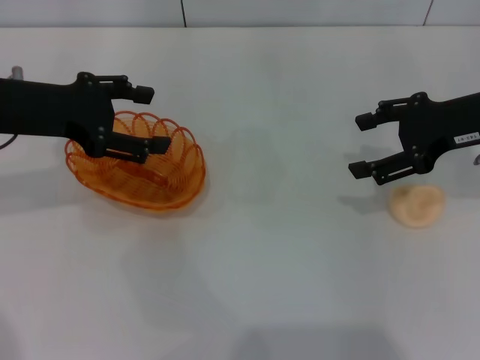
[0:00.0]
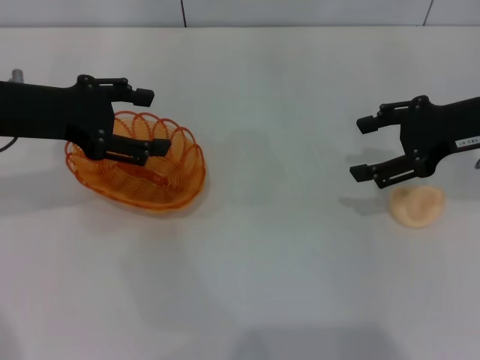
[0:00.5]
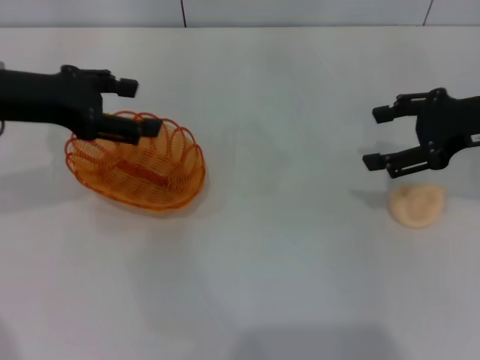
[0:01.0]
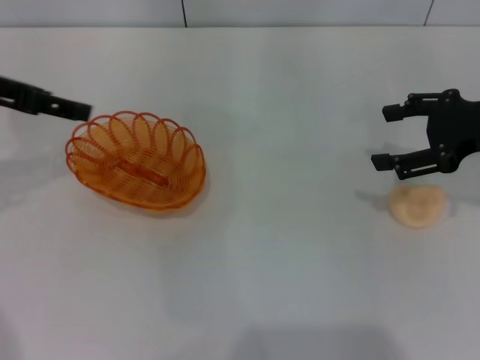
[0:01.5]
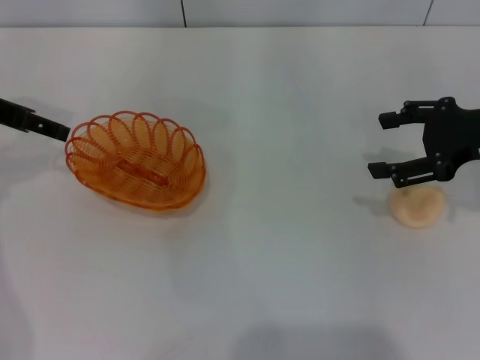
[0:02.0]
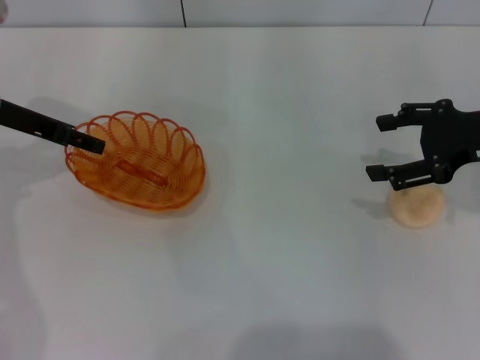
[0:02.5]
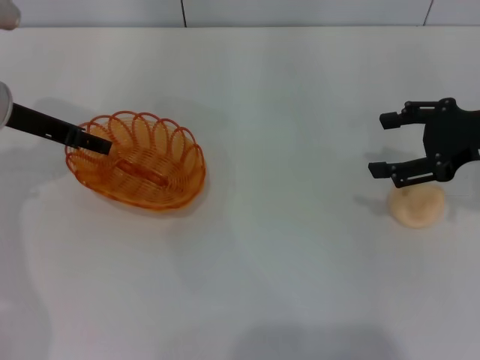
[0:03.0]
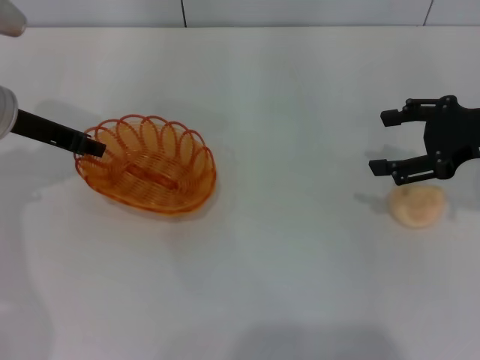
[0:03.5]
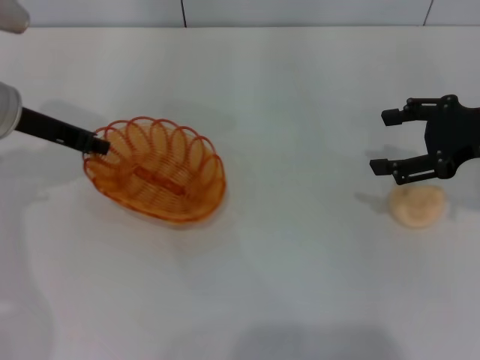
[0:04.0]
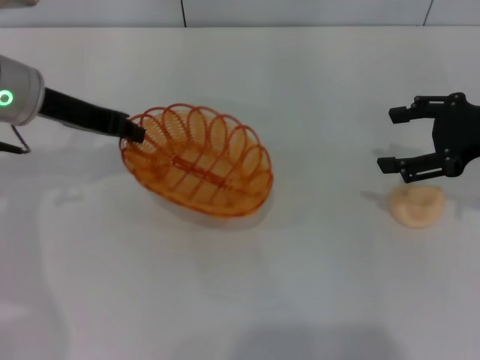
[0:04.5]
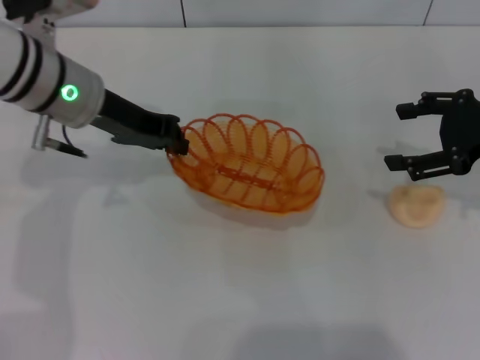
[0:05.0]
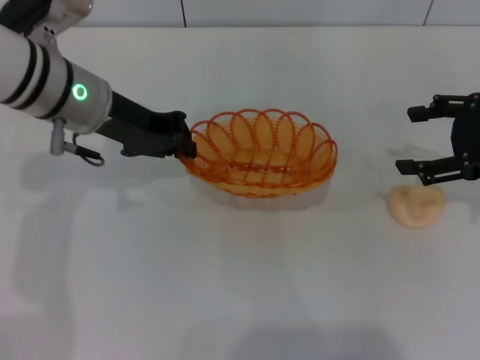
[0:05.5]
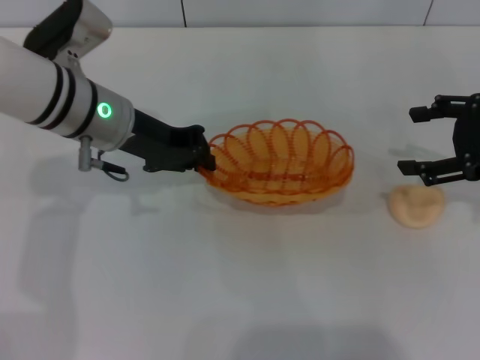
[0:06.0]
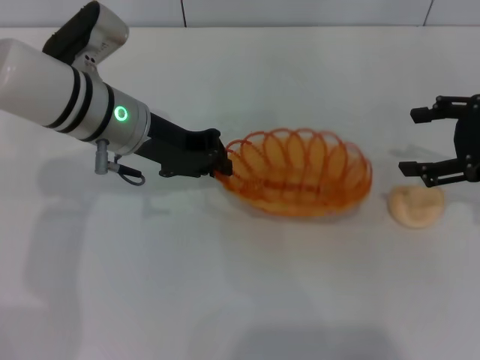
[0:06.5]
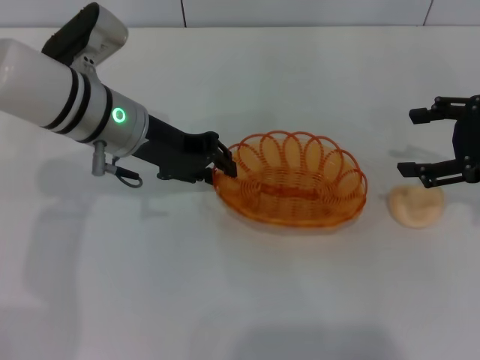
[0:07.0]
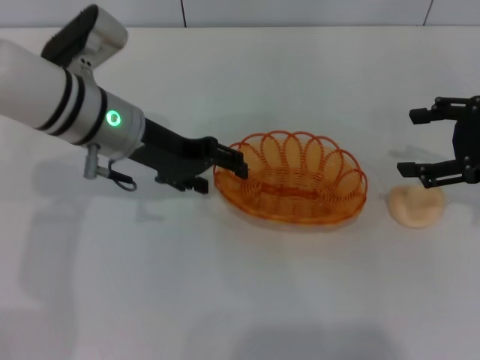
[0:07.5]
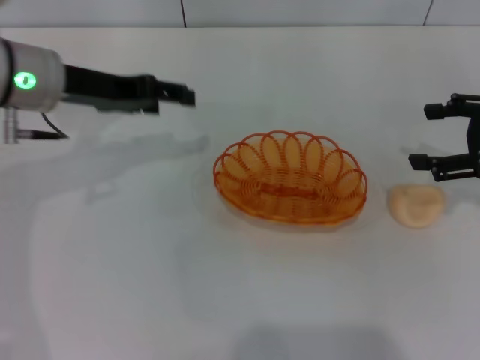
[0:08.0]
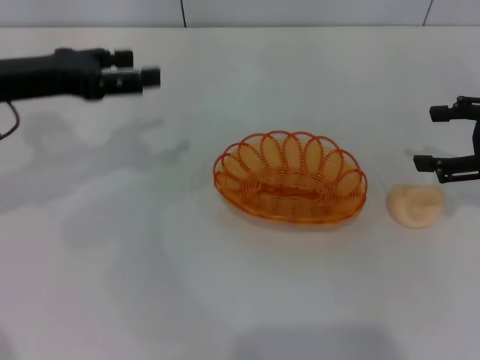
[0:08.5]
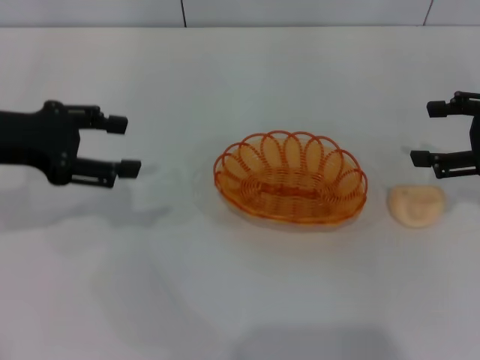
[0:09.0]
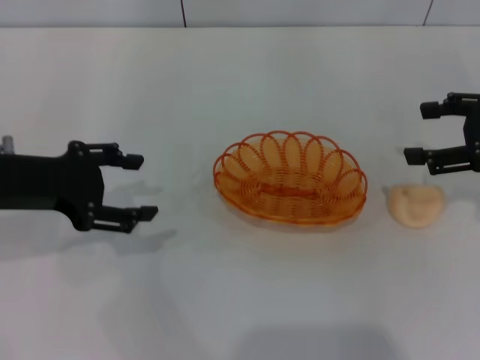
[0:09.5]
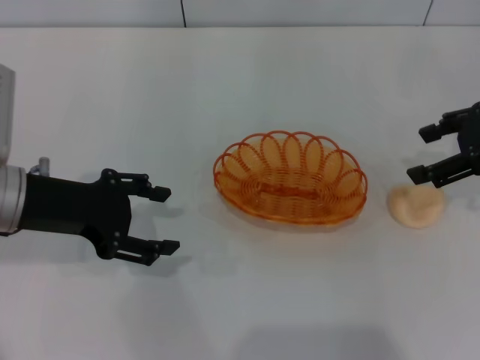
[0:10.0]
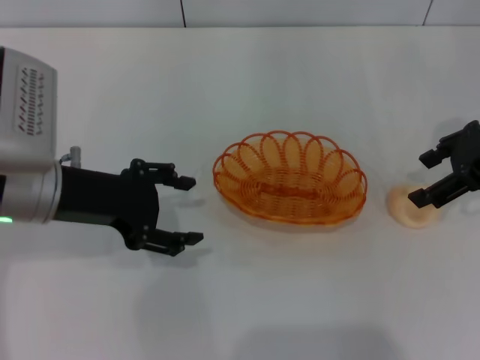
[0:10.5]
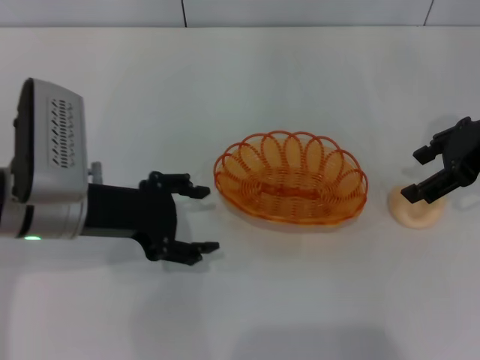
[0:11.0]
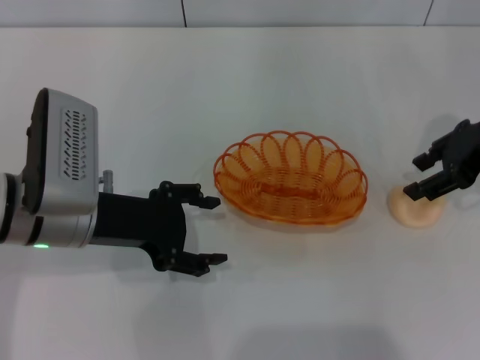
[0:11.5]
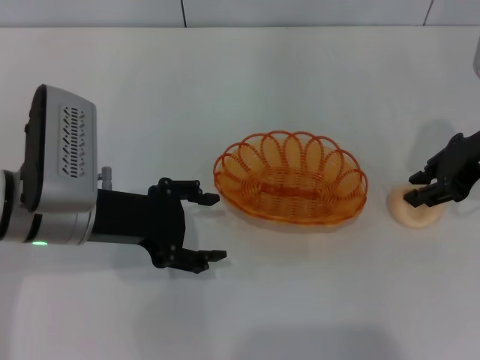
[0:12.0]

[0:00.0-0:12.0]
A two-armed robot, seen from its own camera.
Step, 0:00.0 to 0:04.5: Pick up the basket with the left gripper.
Step, 0:05.0 to 0:08.0: Place the basket in the center of view with the left gripper.
0:00.0 to 0:02.0: The left gripper moves about 5 cm.
0:02.0 to 0:04.0: The left gripper shifts about 5 cm downward, and closes.
0:04.0 to 0:06.0: The left gripper is displaced to the right by about 10 cm.
0:06.0 to 0:08.0: The left gripper moves to the left, about 5 cm, and opens its fingers.
0:08.0 to 0:10.0: The right gripper changes place by about 5 cm. Meanwhile the left gripper is displaced backward by approximately 10 cm.
0:10.0 to 0:12.0: The right gripper closes up. Meanwhile the left gripper goes approximately 5 cm to the right.

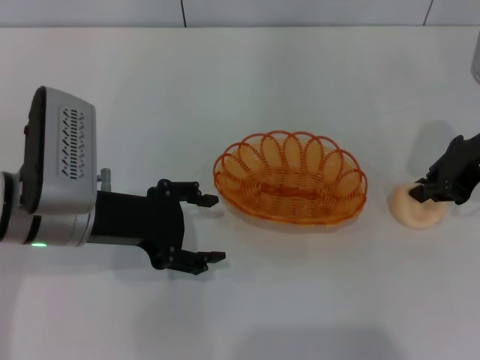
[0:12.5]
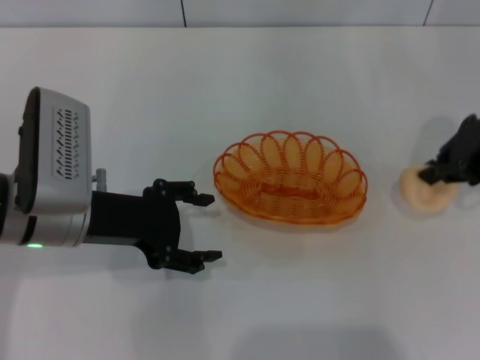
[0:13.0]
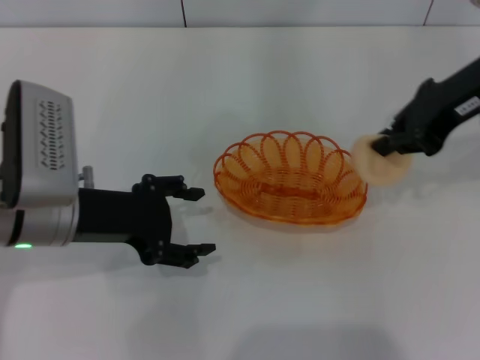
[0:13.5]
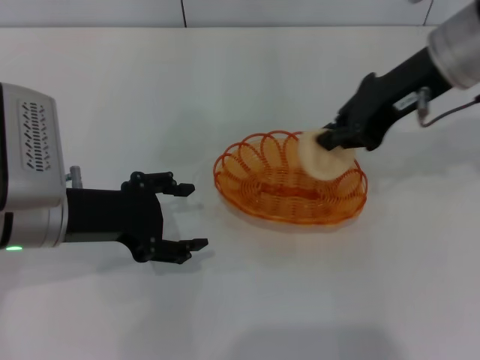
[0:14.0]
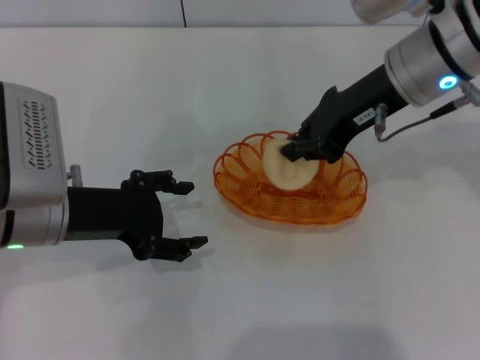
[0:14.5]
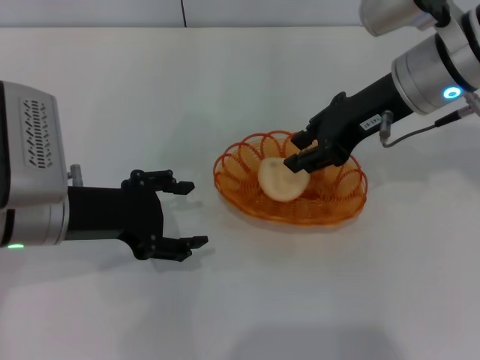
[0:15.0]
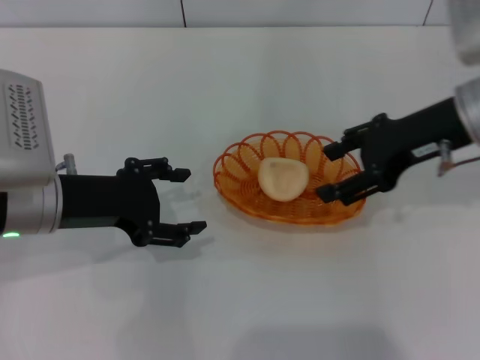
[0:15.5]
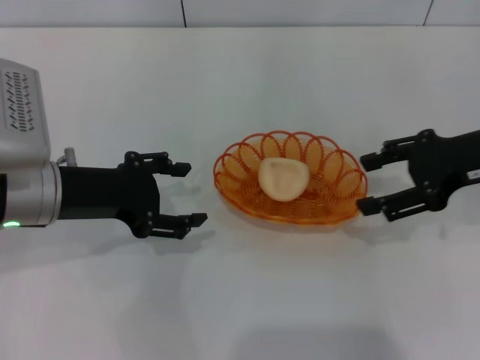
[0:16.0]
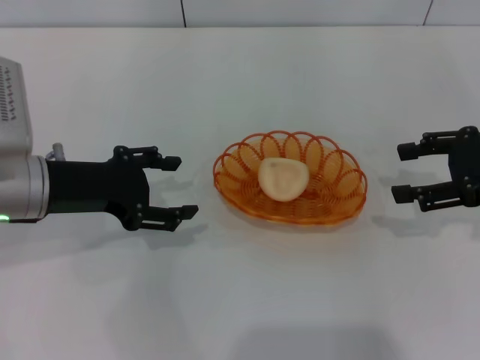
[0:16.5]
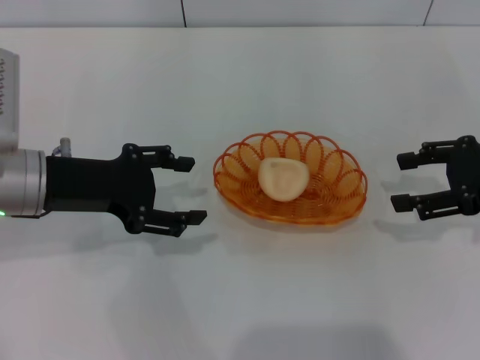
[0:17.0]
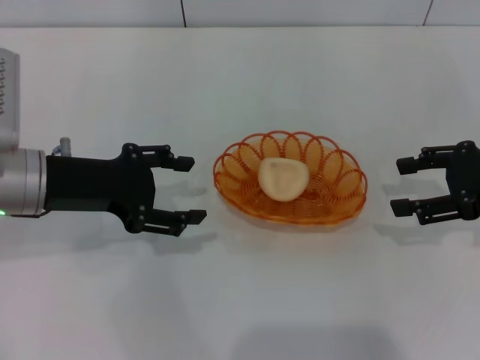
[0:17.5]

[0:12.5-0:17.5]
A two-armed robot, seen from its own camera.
Step, 0:13.5 to 0:15.5: Place the egg yolk pastry into the basket with the right gripper.
0:12.5 to 0:15.0: The right gripper heads to the left, covering roughly 10 cm.
0:15.0 to 0:17.5: The right gripper goes approximately 15 cm to the right, and opens up.

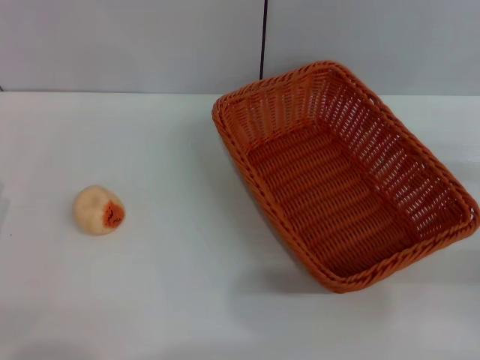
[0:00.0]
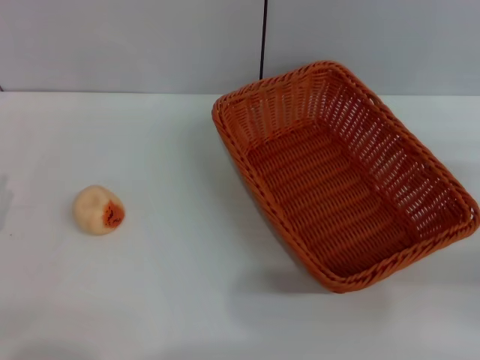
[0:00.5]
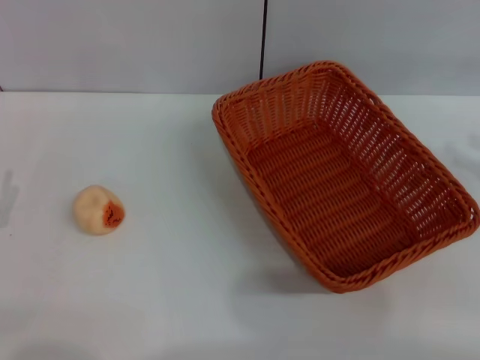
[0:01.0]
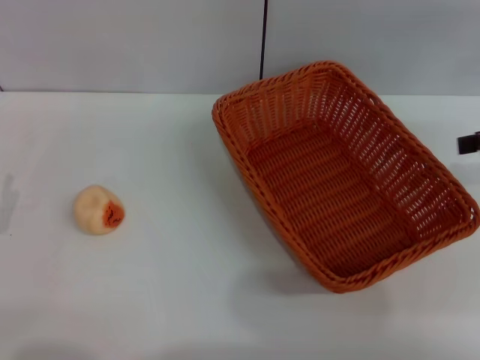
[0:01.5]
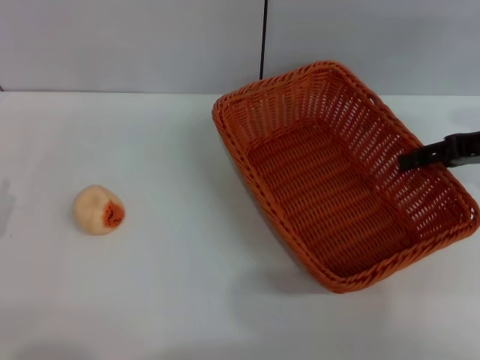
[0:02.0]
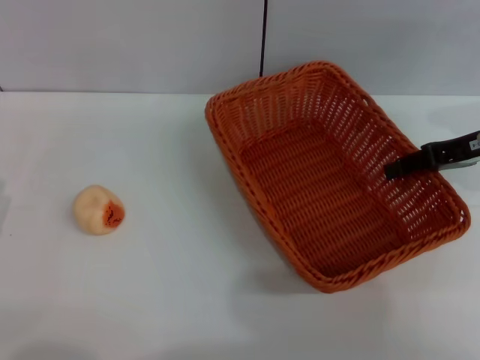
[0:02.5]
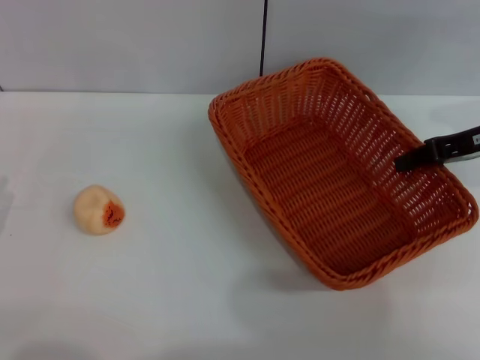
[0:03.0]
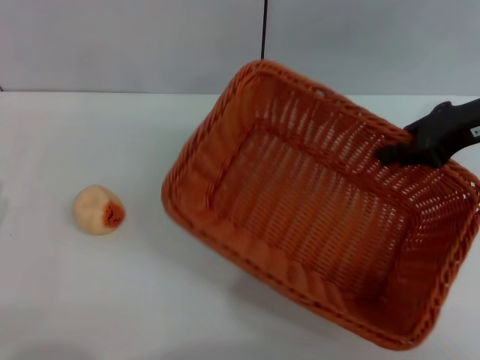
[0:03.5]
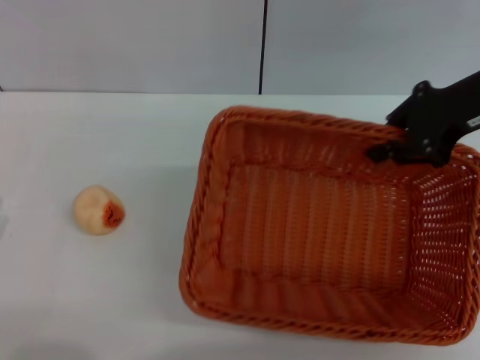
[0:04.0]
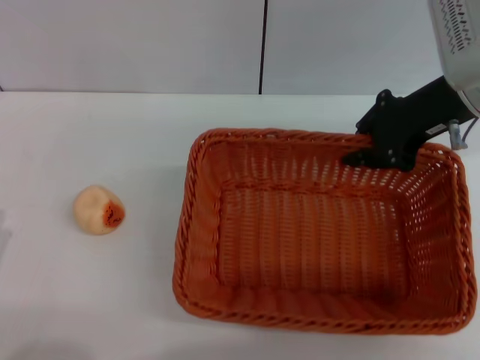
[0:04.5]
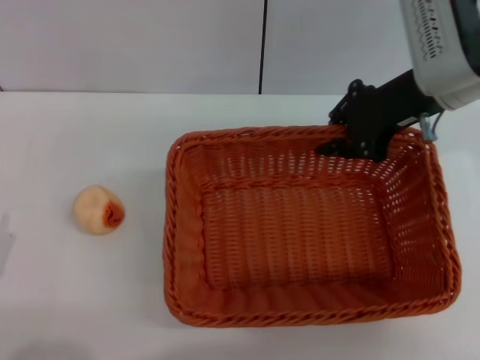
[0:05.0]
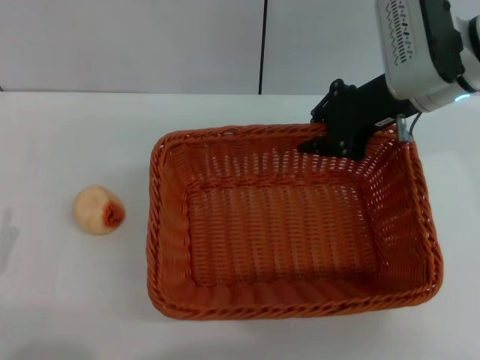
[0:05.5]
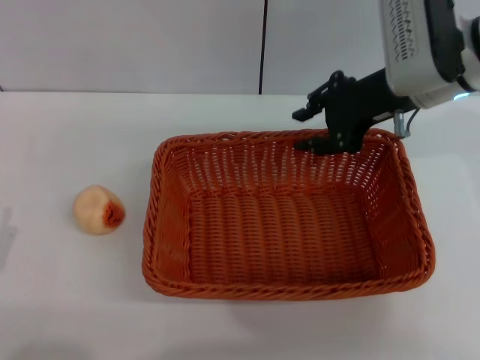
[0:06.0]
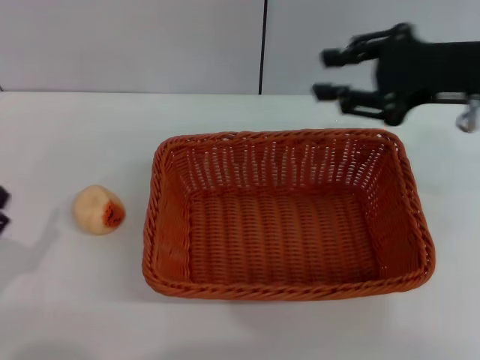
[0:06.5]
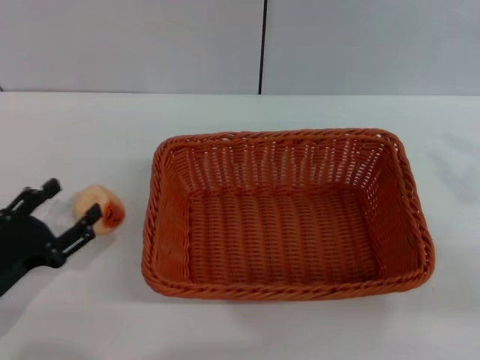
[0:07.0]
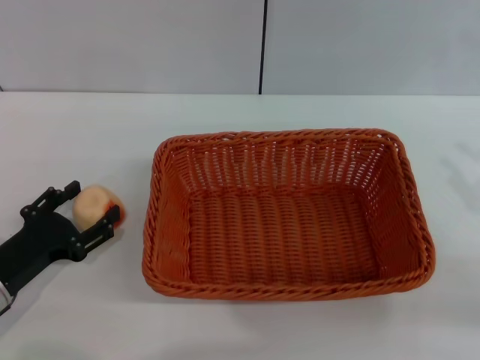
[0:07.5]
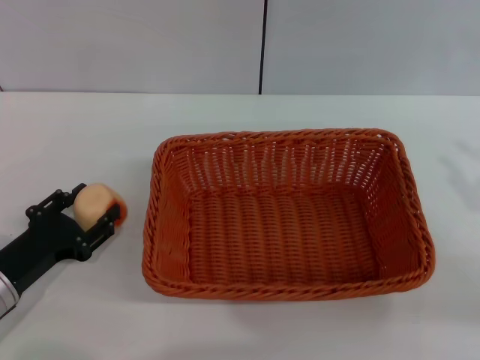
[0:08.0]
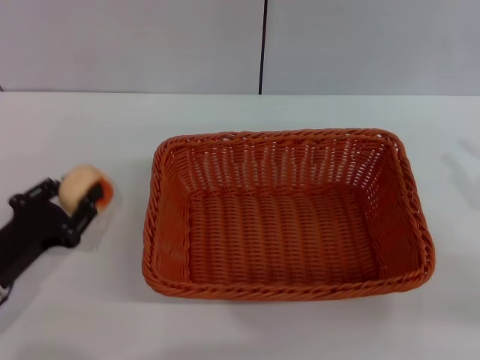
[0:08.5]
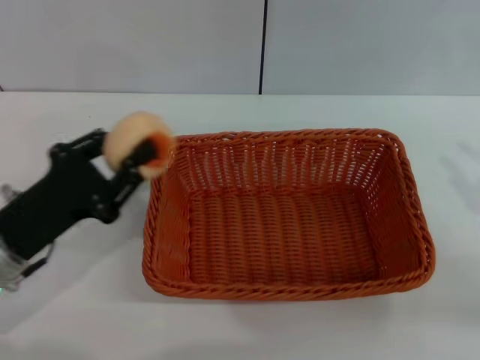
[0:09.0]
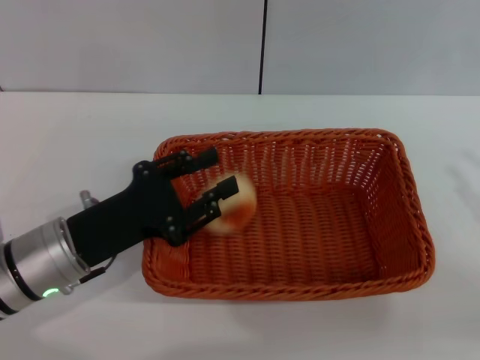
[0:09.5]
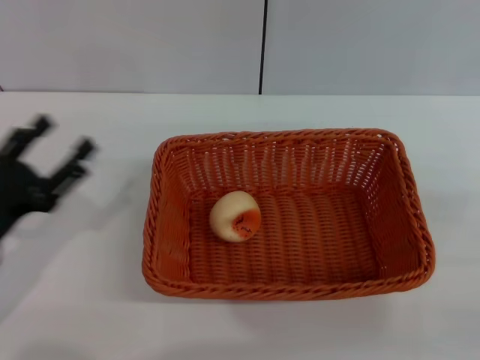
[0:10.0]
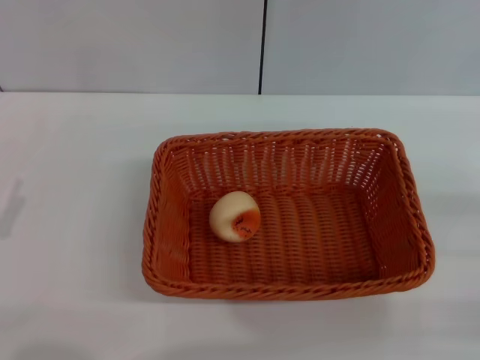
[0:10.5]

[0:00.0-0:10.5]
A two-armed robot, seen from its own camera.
Step, 0:00.0 to 0:06.0: Move the basket to the center of view with the right gripper.
Step, 0:06.5 to 0:08.5: Pick up the egg yolk pastry with the left gripper.
Step, 0:09.0 to 0:09.5: Place the egg yolk pastry into the basket with the left gripper.
0:00.0 to 0:02.0: The right gripper goes about 15 cm forward and upward.
0:02.0 to 0:04.0: The right gripper goes roughly 10 cm to the left and upward, and closes up.
0:04.0 to 0:06.5: The right gripper goes approximately 5 cm backward, and opens up.
0:06.5 to 0:08.5: The left gripper moves forward, about 5 cm, and closes up. The right gripper is displaced backward, to the right and downward by roughly 15 cm.
0:08.5 to 0:10.5: The right gripper heads downward, covering approximately 5 cm, and opens its fingers, while the left gripper is displaced to the left by approximately 5 cm, and opens up.
